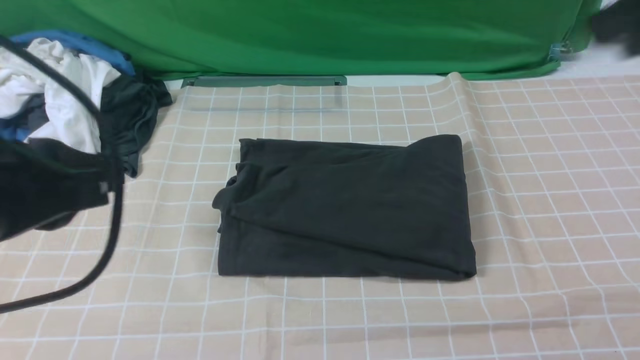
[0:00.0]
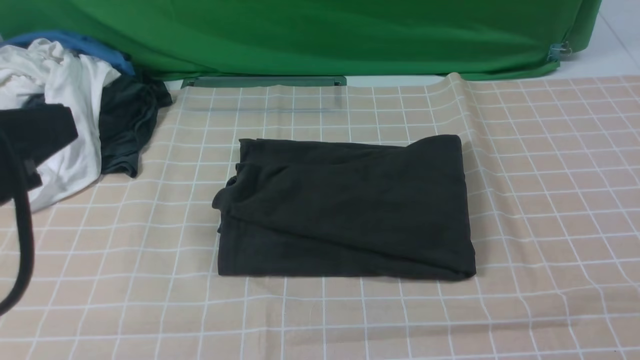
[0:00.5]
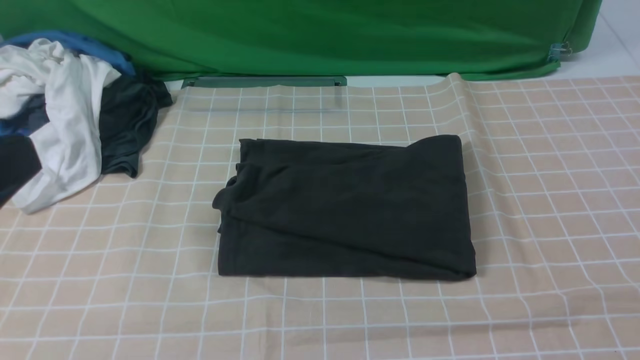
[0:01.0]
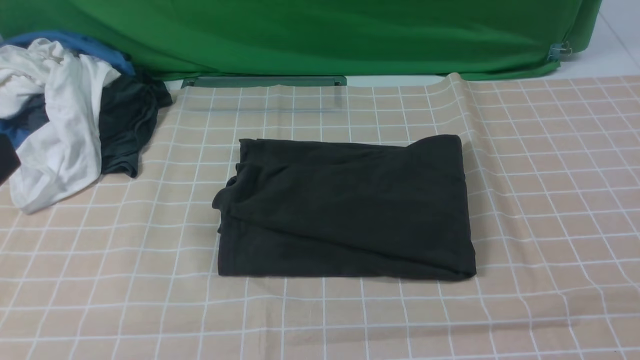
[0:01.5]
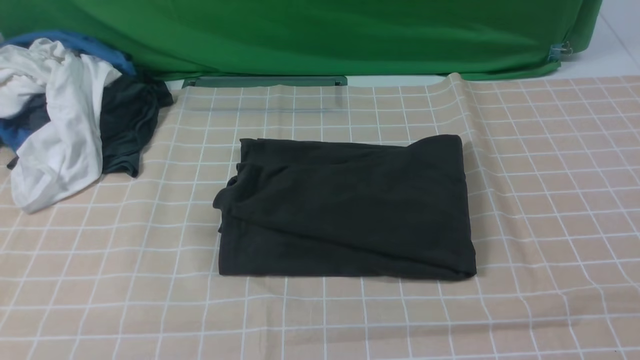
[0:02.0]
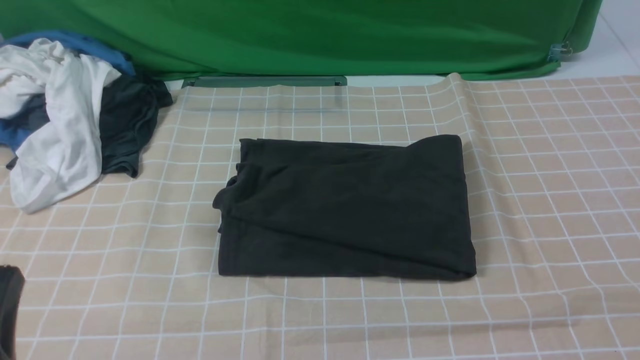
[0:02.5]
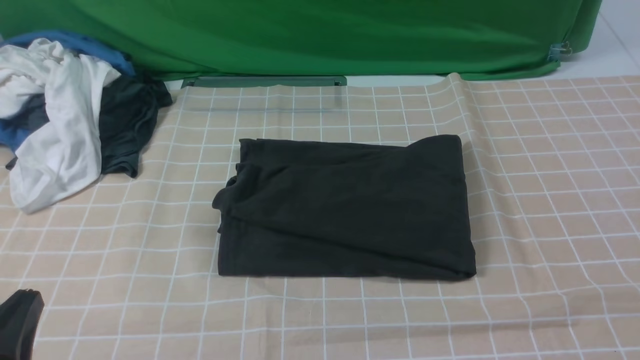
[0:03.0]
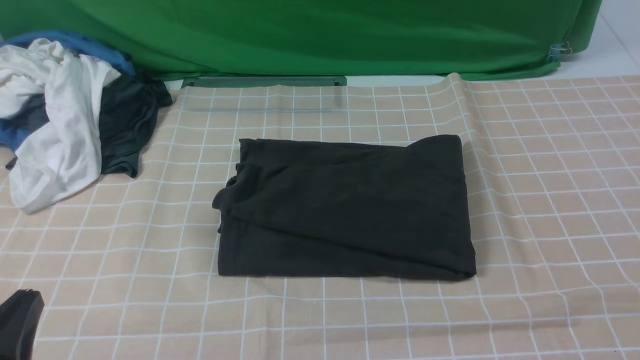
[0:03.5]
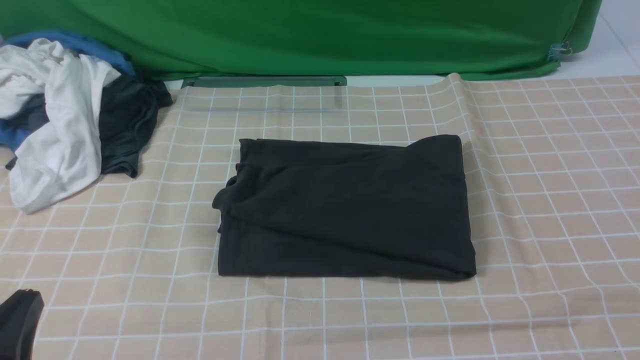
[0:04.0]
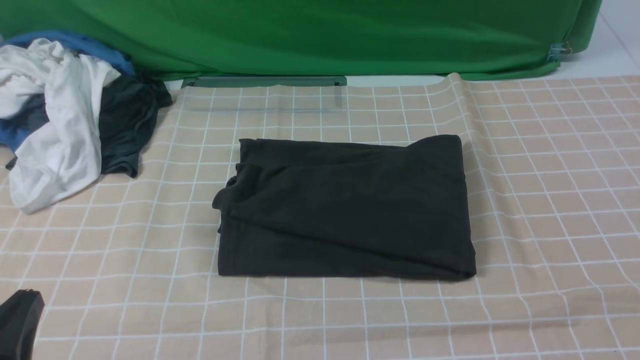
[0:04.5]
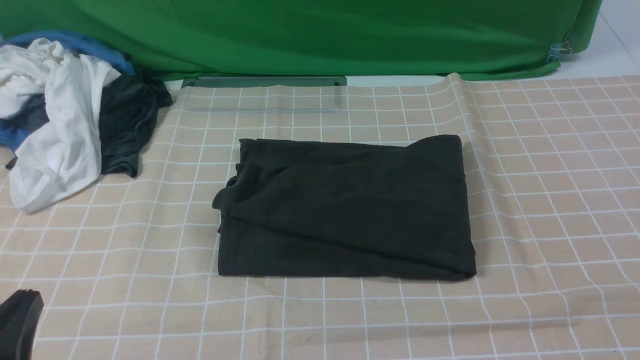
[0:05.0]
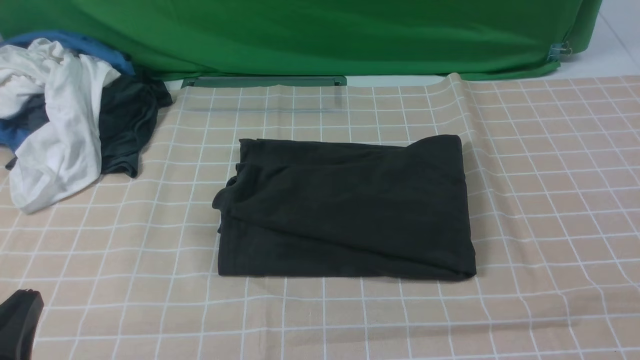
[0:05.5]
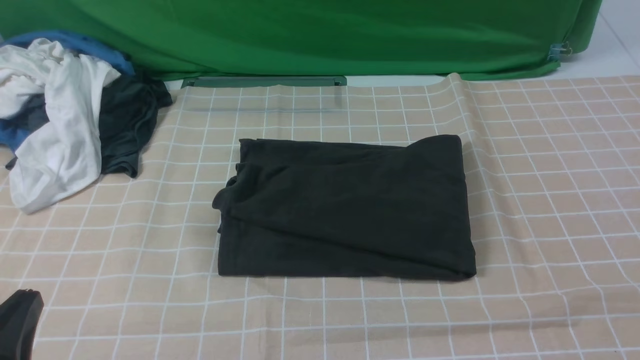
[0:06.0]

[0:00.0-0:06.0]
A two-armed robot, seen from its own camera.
0:00.0 to 0:02.0: The left gripper is displaced backward by some 5 cm. The right gripper is displaced backward and to the right by roughly 25 cm.
0:02.0 to 0:04.0: The left gripper travels downward by some 15 cm.
